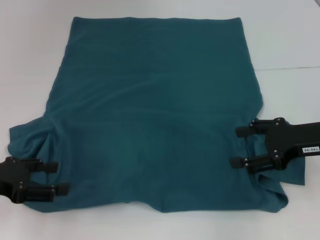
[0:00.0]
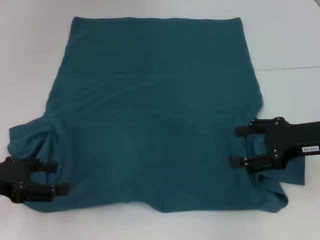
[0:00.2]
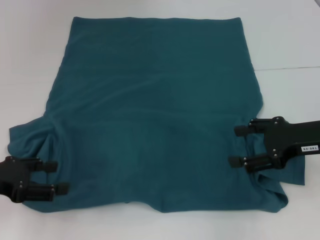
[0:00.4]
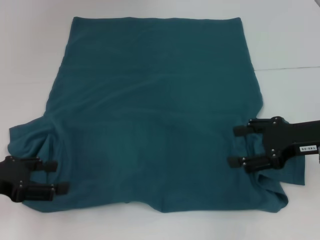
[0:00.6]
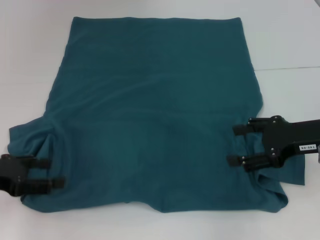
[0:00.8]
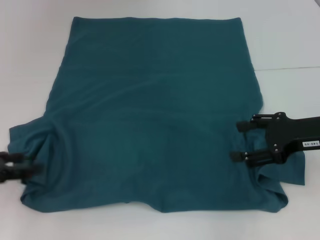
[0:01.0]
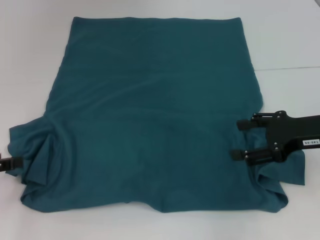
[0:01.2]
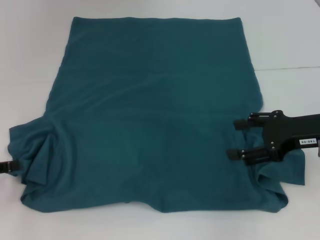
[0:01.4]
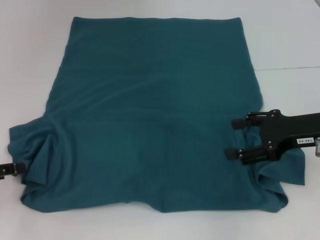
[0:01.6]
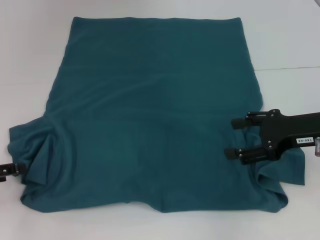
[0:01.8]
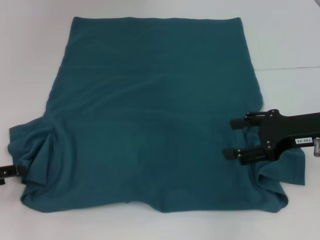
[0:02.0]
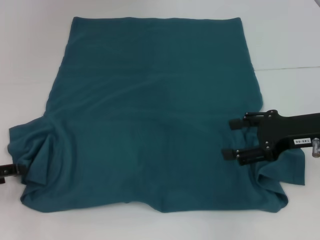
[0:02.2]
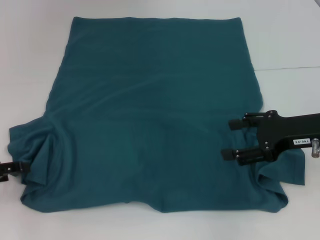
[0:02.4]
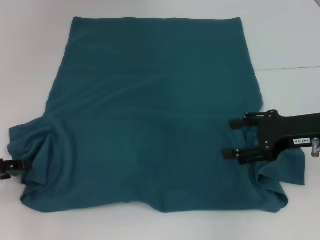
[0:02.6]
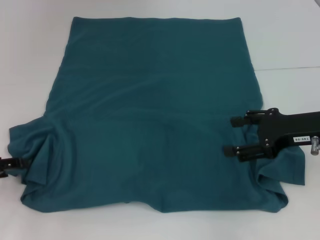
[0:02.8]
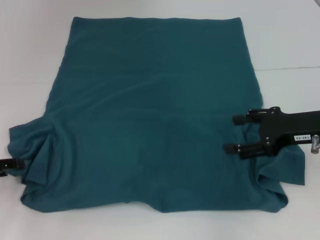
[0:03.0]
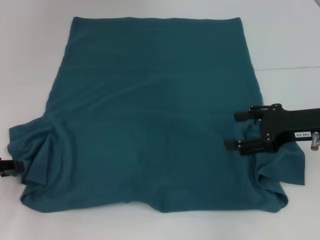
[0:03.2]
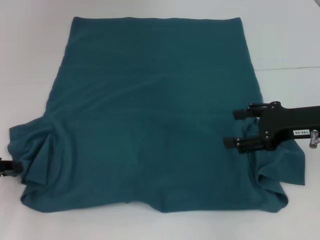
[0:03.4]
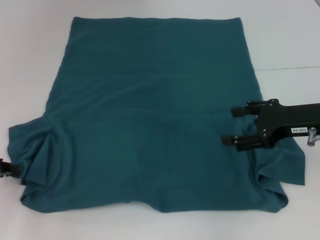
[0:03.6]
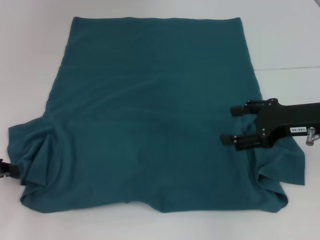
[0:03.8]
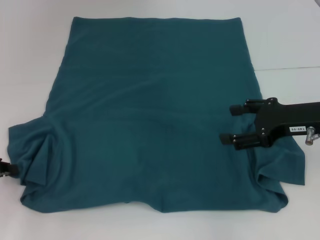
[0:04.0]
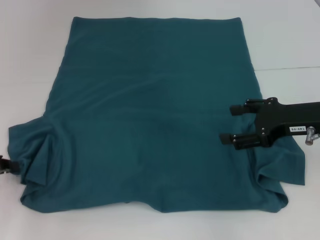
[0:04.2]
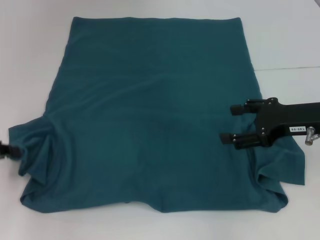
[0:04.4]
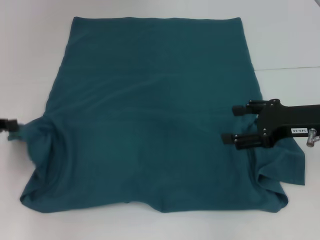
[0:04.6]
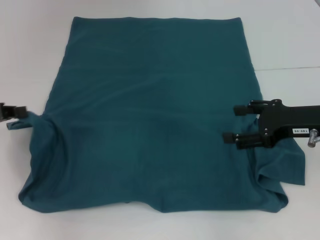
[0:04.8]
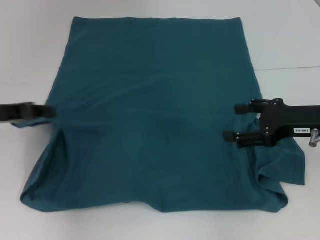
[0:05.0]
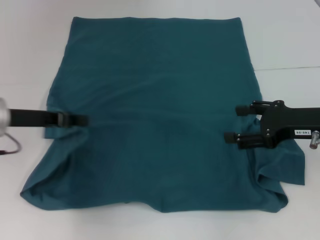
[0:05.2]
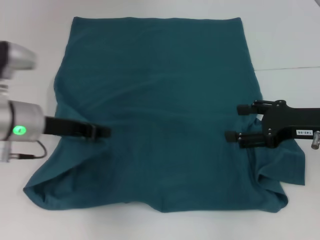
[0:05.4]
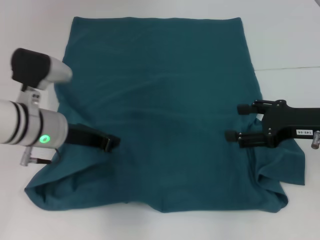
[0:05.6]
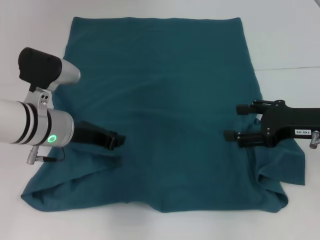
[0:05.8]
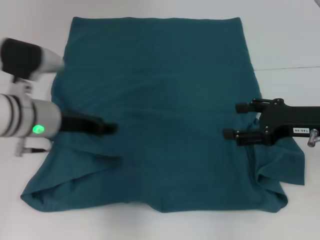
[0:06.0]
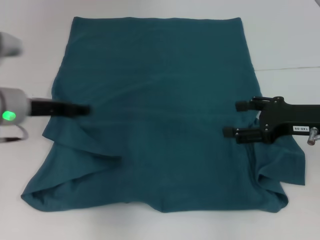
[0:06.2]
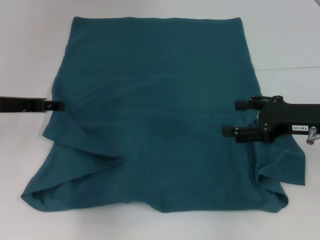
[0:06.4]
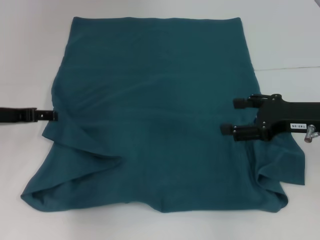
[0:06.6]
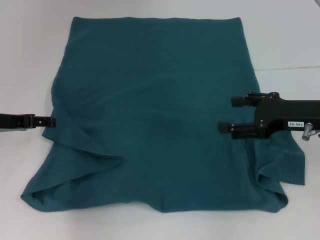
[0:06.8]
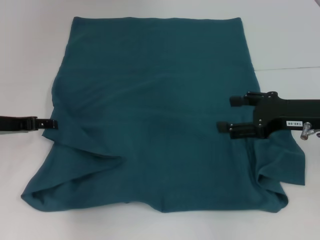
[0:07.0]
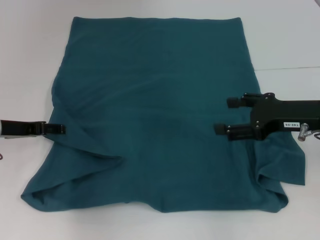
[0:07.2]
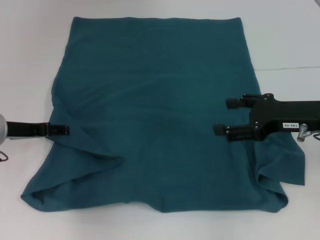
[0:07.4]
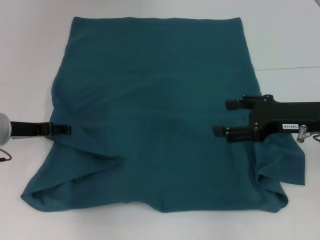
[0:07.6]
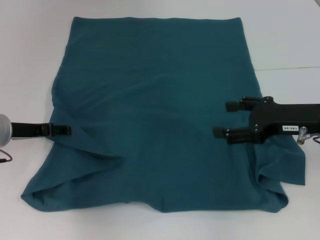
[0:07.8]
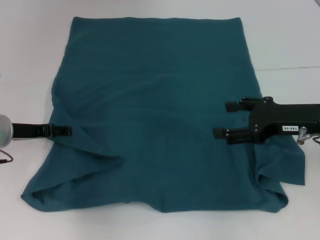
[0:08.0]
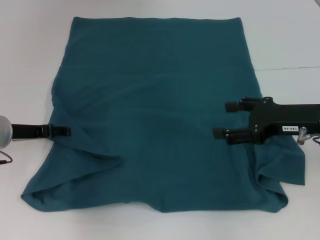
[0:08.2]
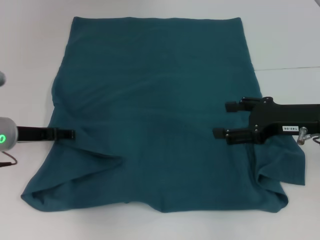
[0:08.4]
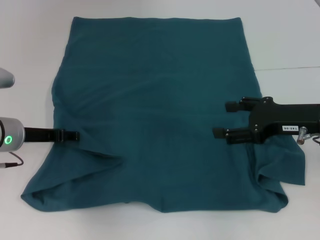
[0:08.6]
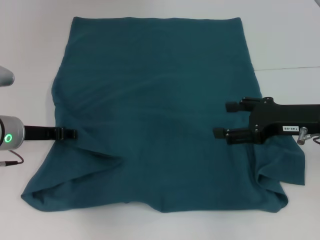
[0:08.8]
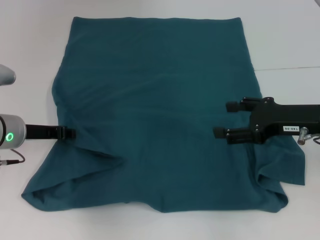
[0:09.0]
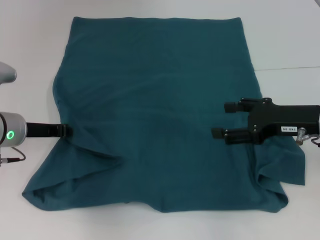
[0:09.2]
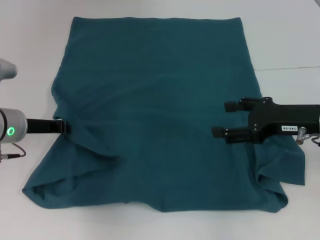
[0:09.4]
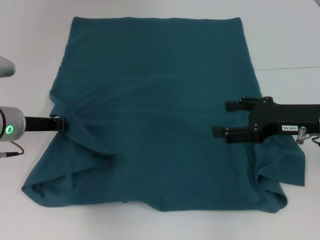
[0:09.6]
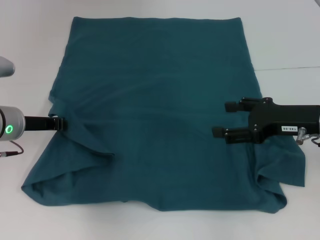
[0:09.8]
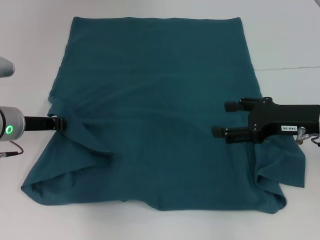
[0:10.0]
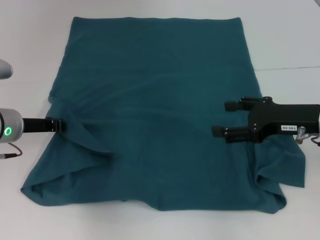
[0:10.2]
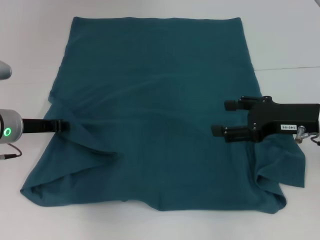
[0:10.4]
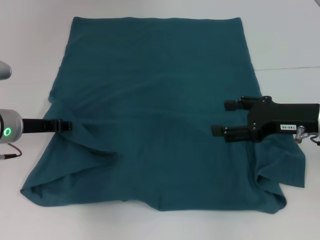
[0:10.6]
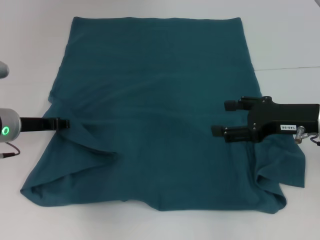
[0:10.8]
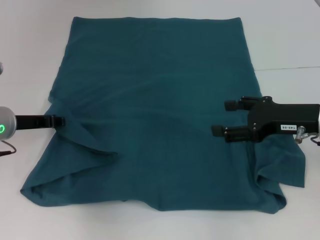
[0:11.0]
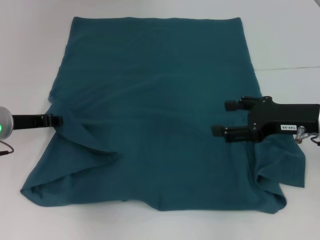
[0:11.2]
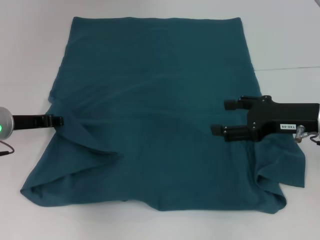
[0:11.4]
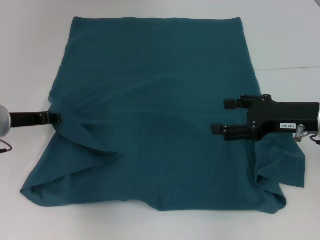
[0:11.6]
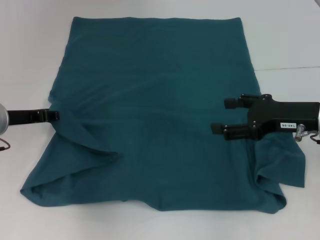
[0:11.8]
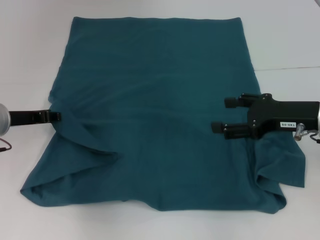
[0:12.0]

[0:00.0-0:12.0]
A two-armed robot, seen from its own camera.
0:01.6 to 0:03.0: The grippers make only small movements.
0:03.0 to 0:04.4: The left gripper closes up.
0:04.4 to 0:06.0: The left gripper is displaced to the right by approximately 15 cm.
0:06.0 to 0:07.6: The left gripper travels to the left by about 10 cm, and opens.
0:07.6 to 0:09.0: The left gripper closes its fingers.
0:09.0 to 0:10.4: Both grippers stay about where they are.
0:10.4 to 0:12.0: The grippers make only small movements.

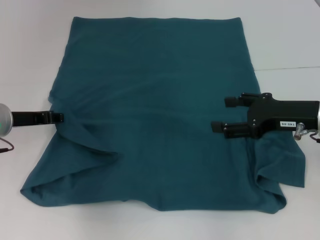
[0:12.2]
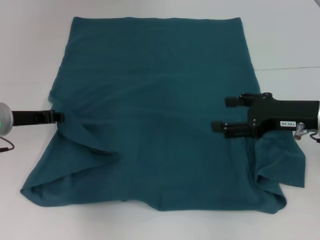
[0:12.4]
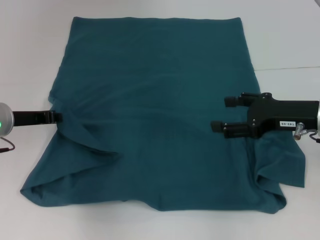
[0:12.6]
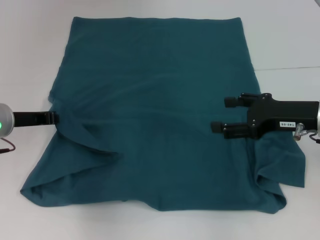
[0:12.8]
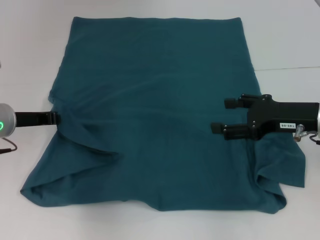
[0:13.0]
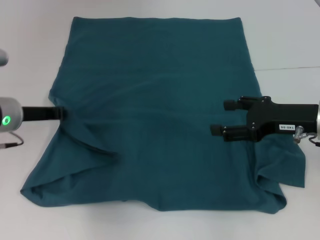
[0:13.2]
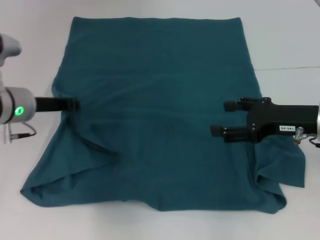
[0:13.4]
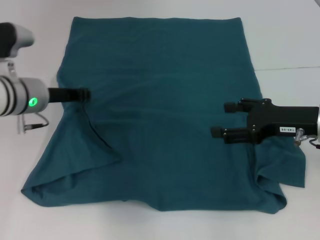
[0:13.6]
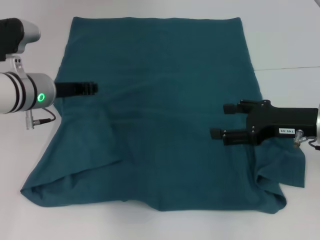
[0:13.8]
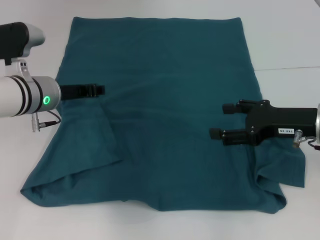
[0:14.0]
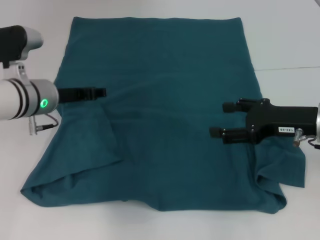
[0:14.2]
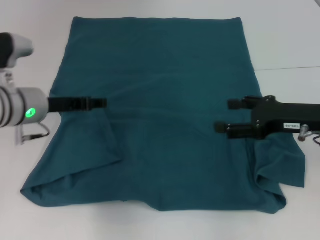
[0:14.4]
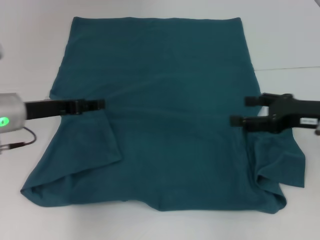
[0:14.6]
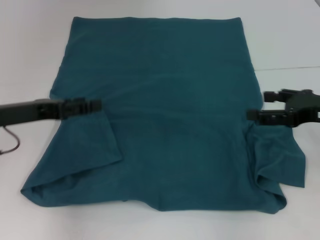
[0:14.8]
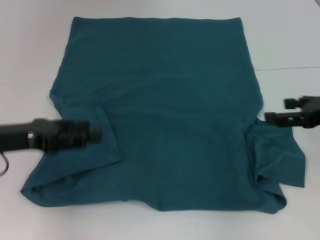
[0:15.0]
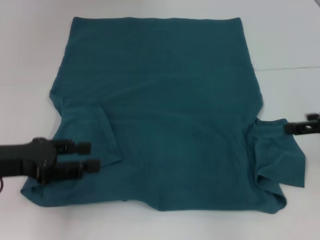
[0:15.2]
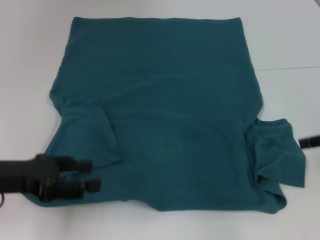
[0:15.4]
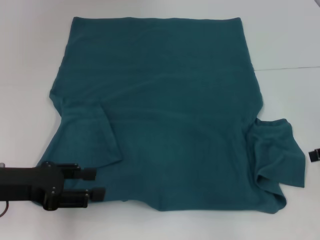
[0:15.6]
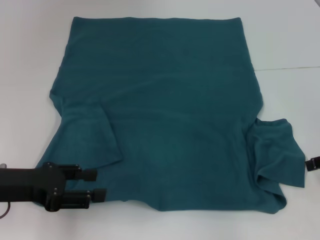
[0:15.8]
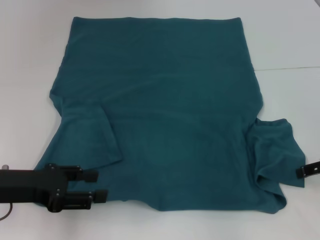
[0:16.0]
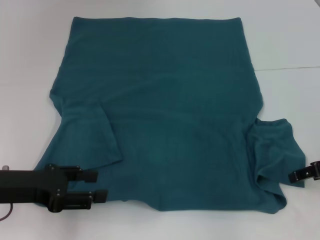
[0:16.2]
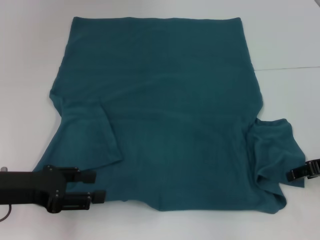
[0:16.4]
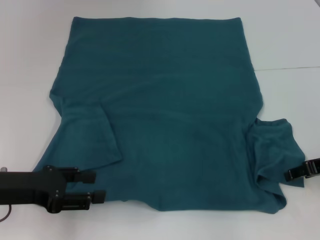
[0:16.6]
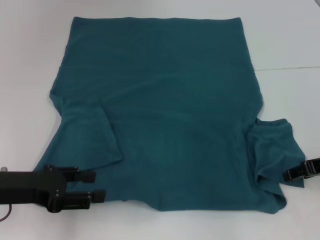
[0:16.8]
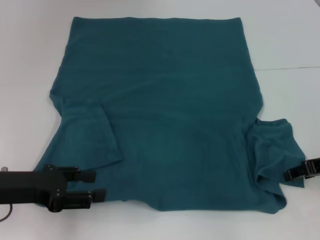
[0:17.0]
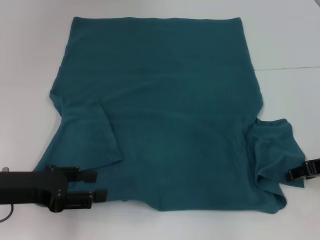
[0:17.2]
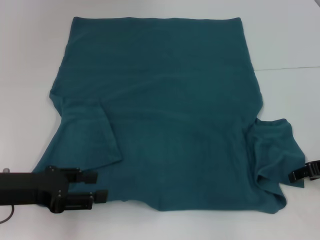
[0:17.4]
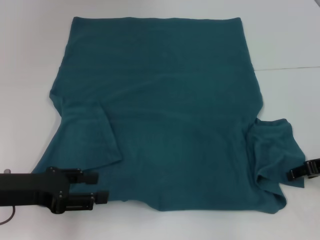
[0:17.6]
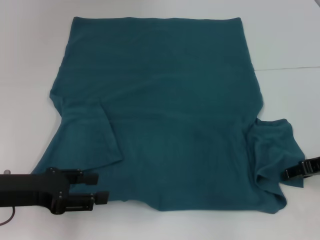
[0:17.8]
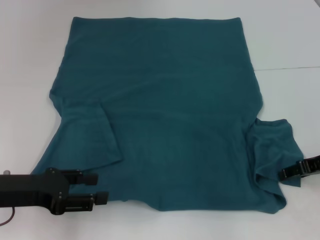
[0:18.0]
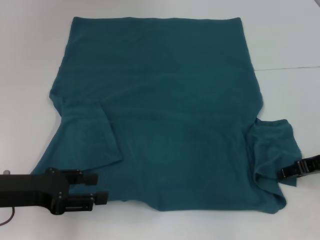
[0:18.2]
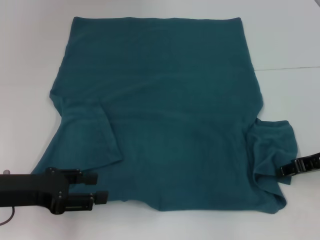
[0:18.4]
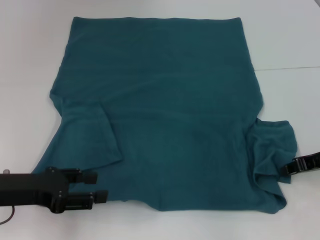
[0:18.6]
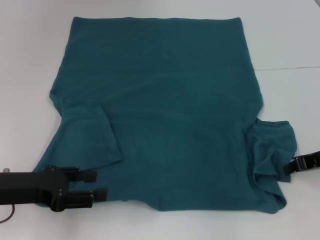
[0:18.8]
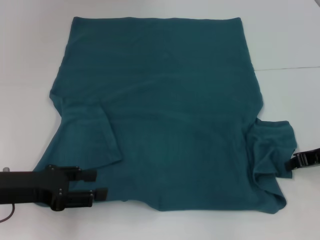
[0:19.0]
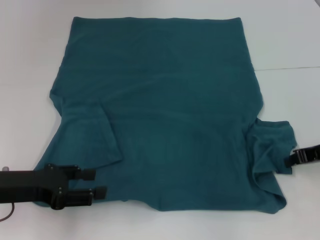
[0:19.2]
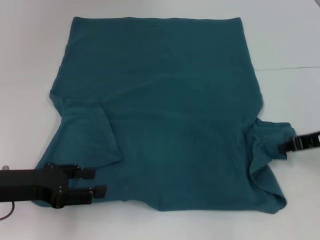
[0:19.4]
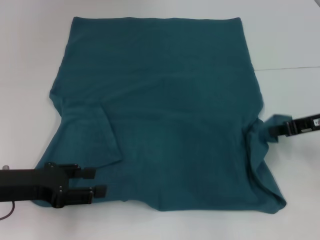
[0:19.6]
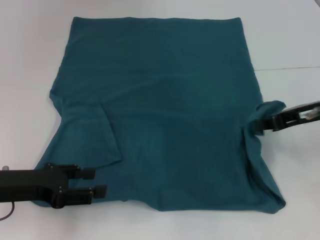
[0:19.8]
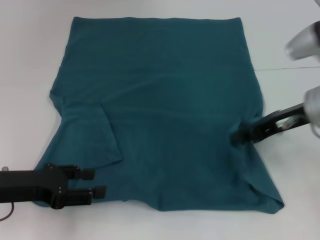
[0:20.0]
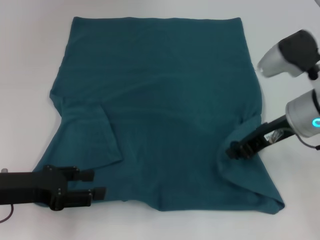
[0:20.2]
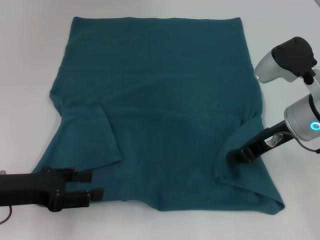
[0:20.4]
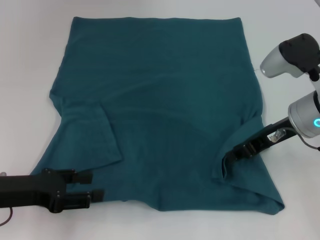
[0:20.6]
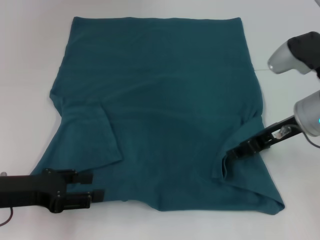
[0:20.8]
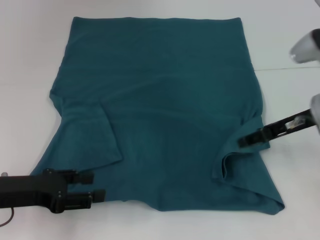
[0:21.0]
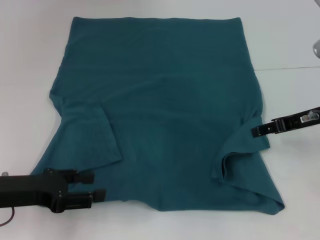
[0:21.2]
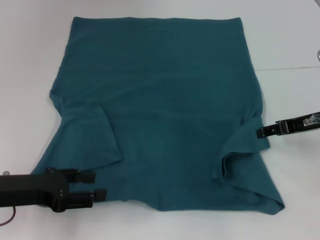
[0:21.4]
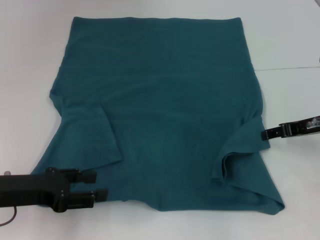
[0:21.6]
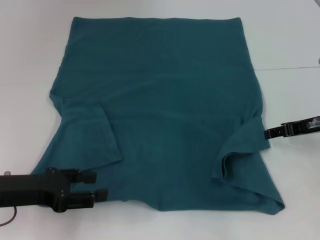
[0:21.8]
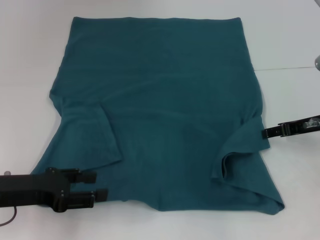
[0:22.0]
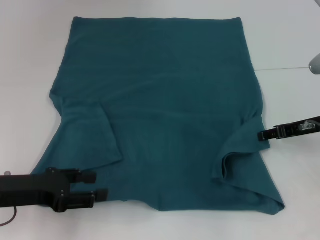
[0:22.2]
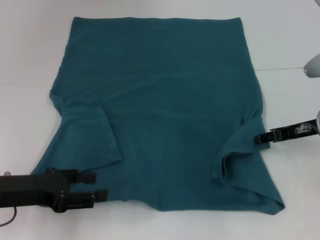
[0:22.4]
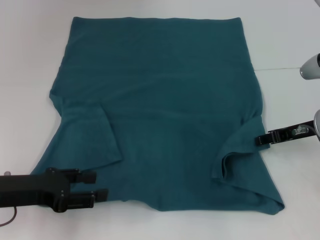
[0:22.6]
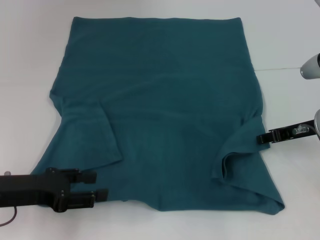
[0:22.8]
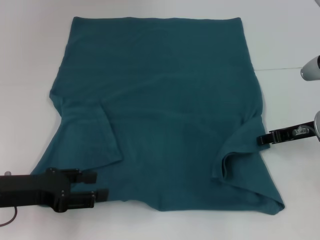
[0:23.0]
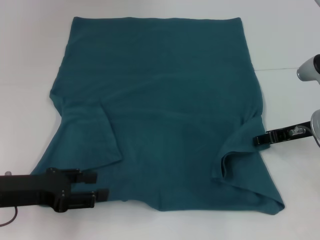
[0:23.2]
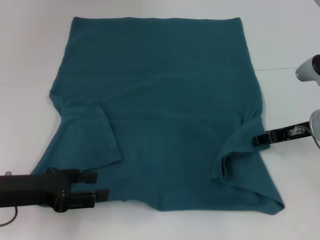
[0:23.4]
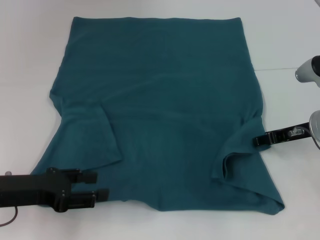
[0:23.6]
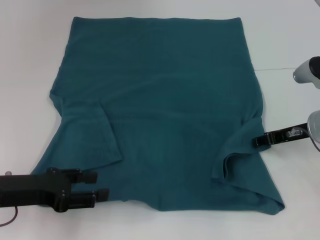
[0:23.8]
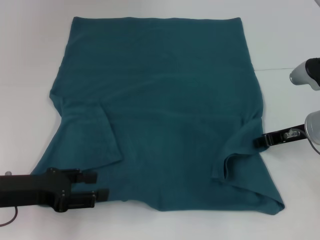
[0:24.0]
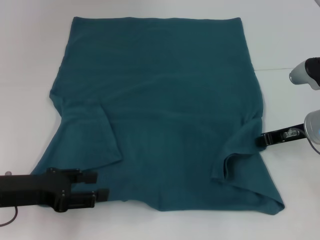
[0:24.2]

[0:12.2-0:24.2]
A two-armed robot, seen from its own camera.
Step, 0:12.2 to 0:14.2: Fold the bottom left sleeve with your left hand.
0:12.2 to 0:13.8: The left gripper goes about 5 cm to the right.
0:13.8 to 0:15.2: The right gripper heads to the right and upward, covering approximately 10 cm; the left gripper travels backward and to the left by some 15 cm, and opens its fingers.
0:15.2 to 0:16.6: The right gripper is displaced downward by some 5 cm.
0:16.6 to 0:18.2: Both grippers stay about where they are.
0:18.2 to 0:19.8: The right gripper is displaced upward by roughly 5 cm, and closes up.
0:19.8 to 0:21.2: The right gripper opens.
0:21.2 to 0:22.6: The grippers make only small movements.
0:22.6 to 0:24.2: The grippers make only small movements.
